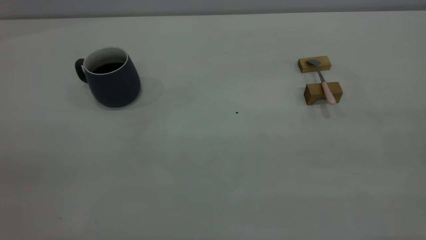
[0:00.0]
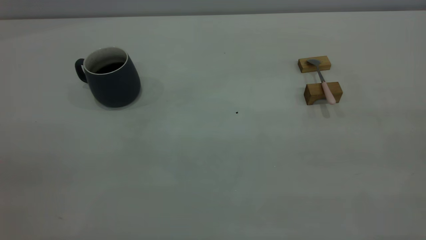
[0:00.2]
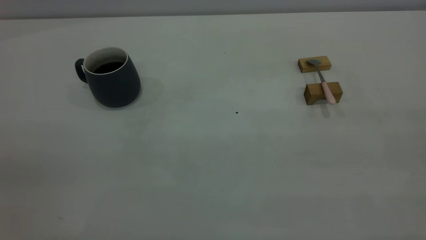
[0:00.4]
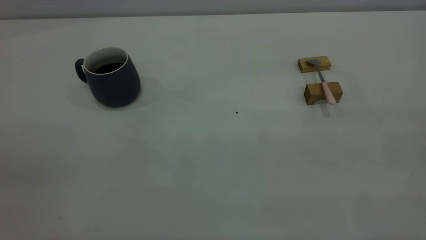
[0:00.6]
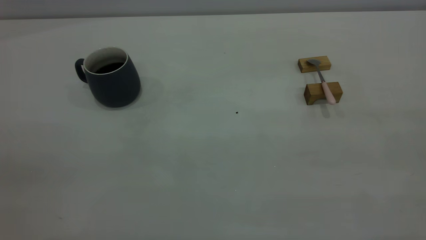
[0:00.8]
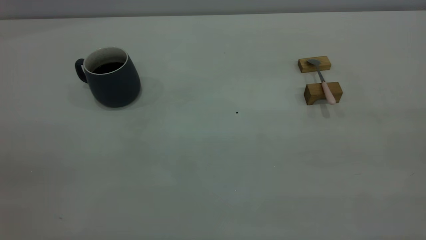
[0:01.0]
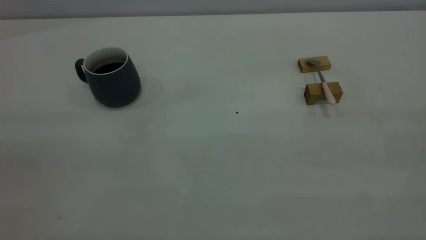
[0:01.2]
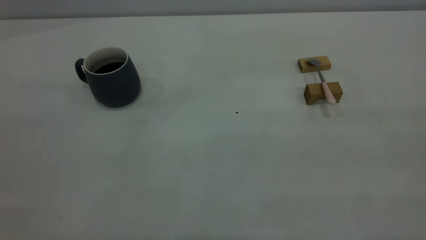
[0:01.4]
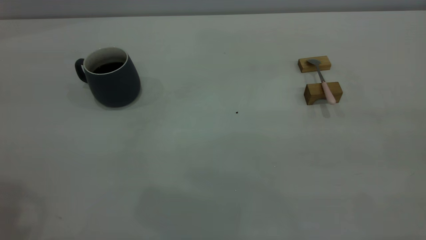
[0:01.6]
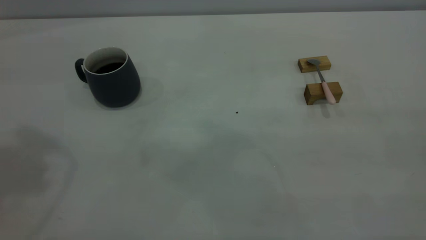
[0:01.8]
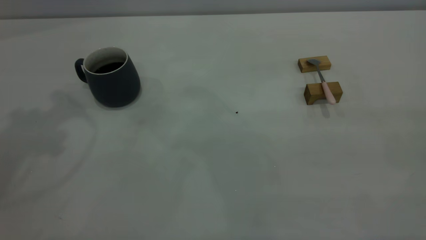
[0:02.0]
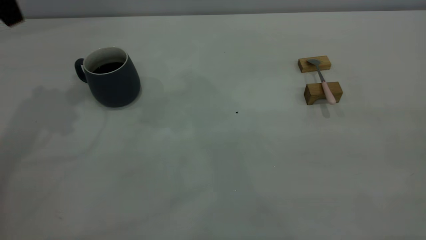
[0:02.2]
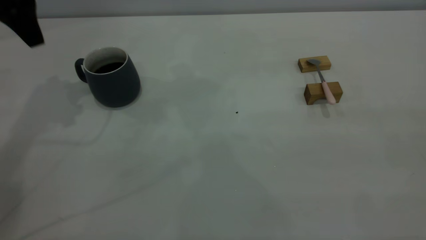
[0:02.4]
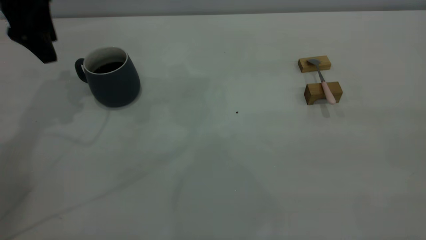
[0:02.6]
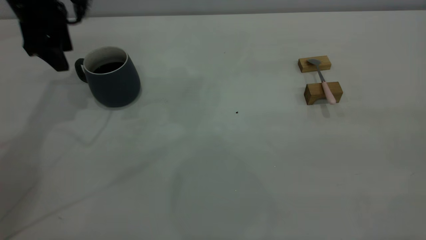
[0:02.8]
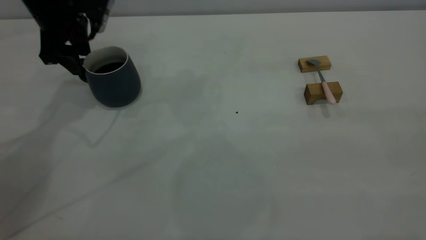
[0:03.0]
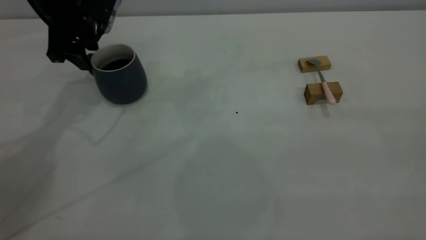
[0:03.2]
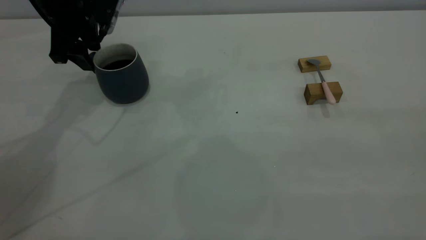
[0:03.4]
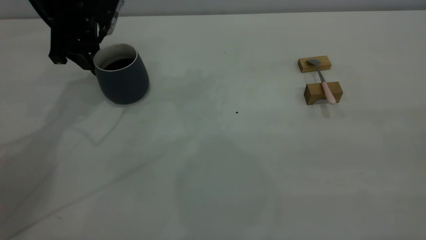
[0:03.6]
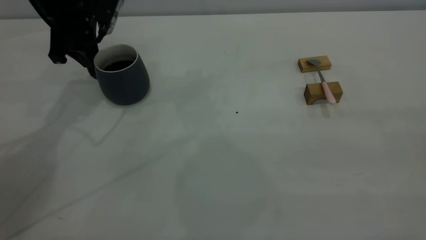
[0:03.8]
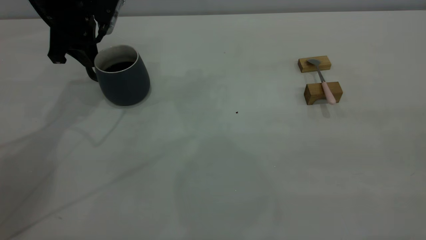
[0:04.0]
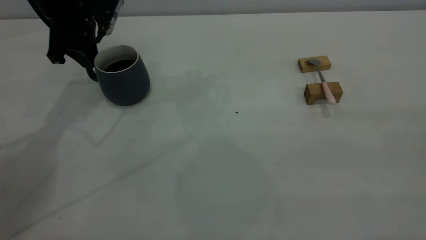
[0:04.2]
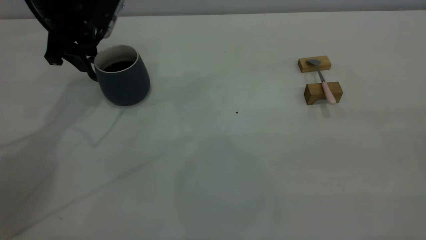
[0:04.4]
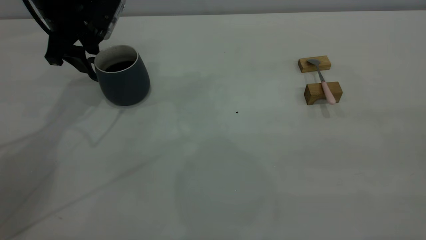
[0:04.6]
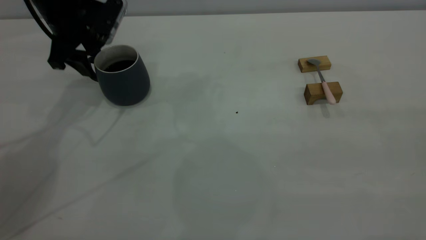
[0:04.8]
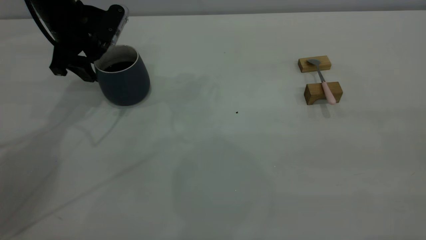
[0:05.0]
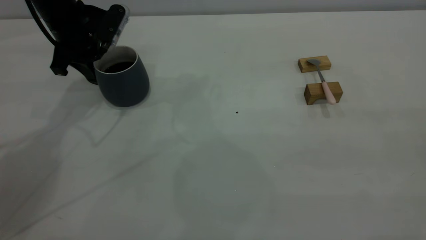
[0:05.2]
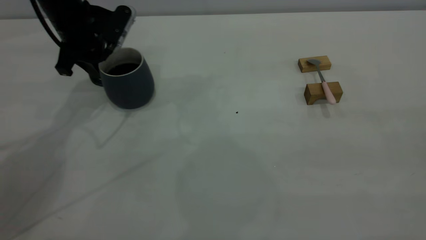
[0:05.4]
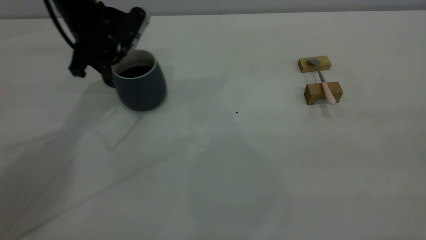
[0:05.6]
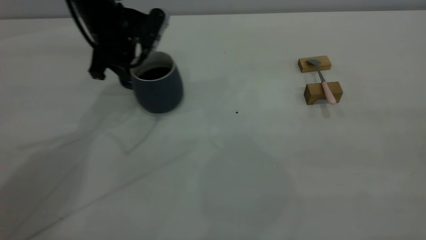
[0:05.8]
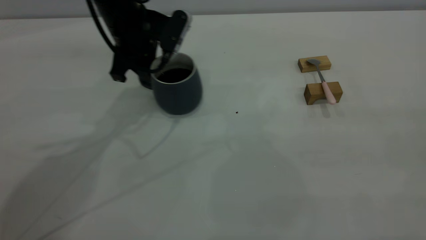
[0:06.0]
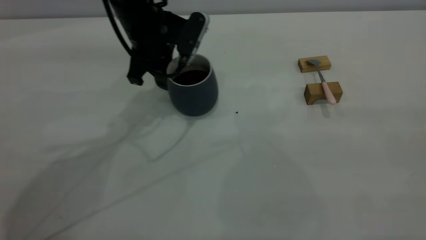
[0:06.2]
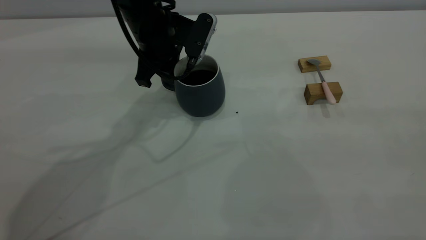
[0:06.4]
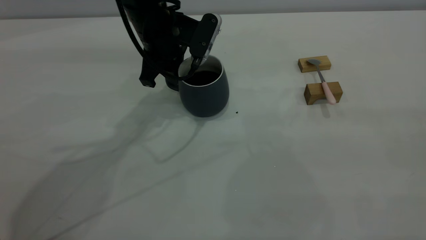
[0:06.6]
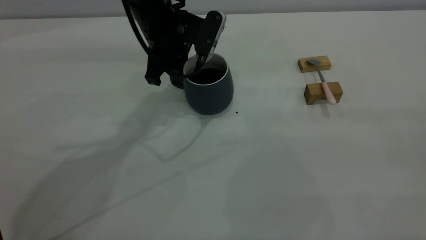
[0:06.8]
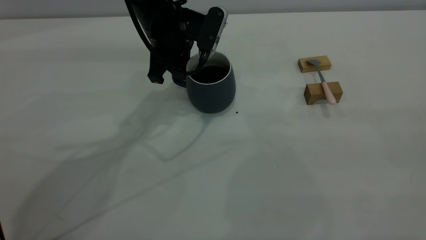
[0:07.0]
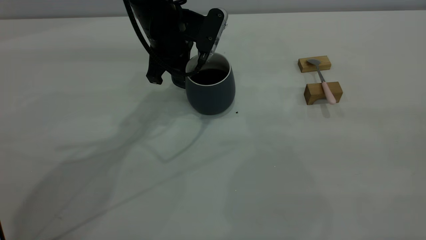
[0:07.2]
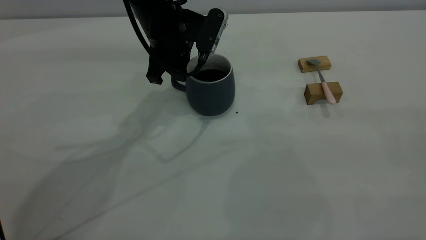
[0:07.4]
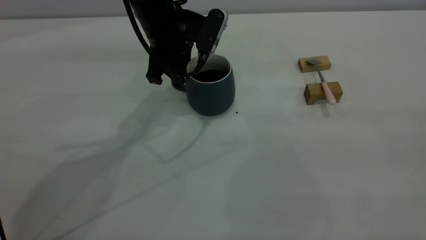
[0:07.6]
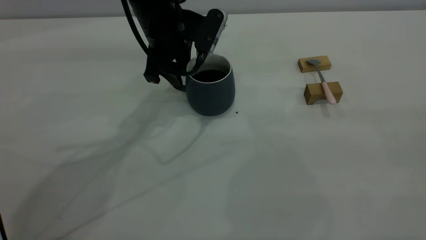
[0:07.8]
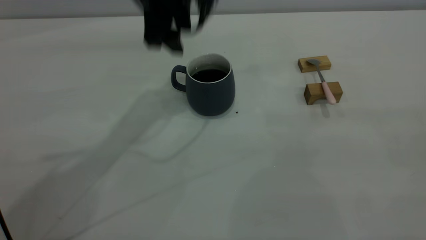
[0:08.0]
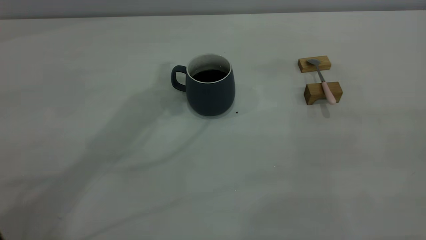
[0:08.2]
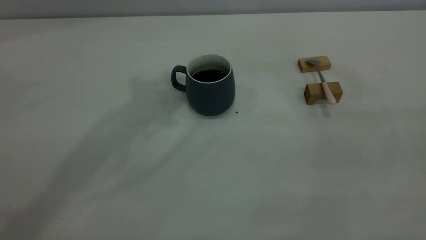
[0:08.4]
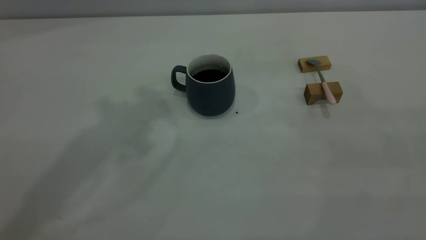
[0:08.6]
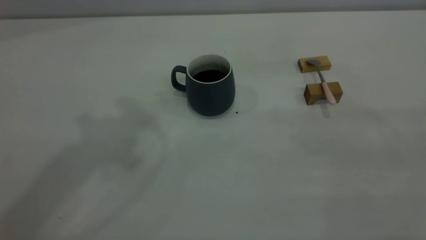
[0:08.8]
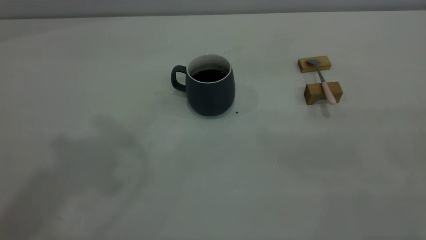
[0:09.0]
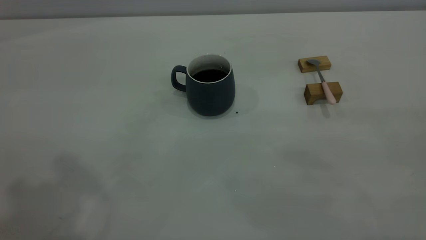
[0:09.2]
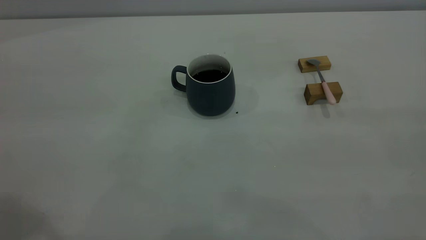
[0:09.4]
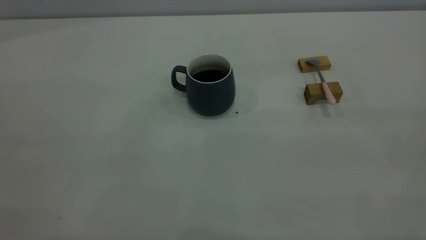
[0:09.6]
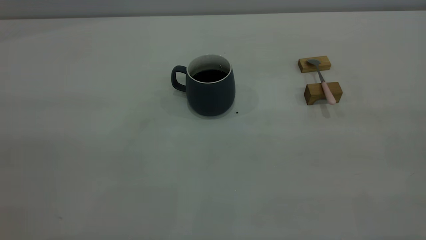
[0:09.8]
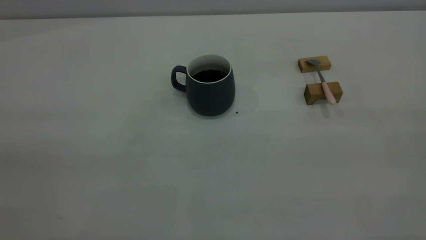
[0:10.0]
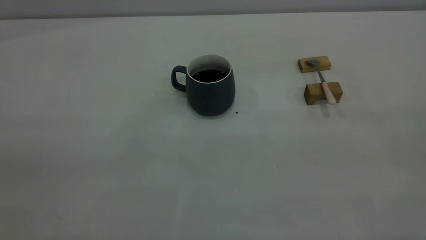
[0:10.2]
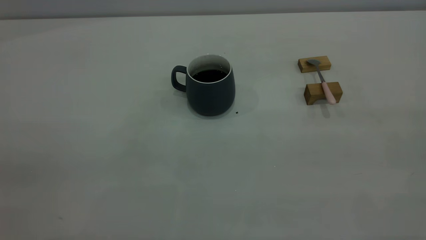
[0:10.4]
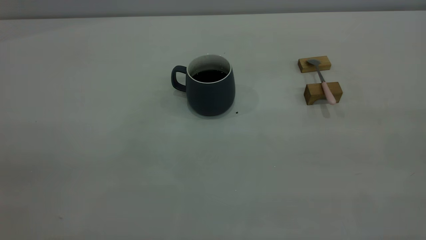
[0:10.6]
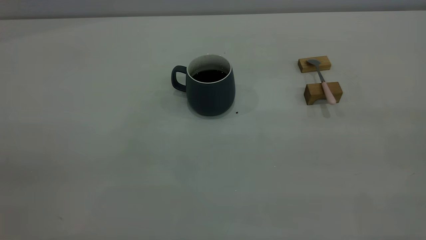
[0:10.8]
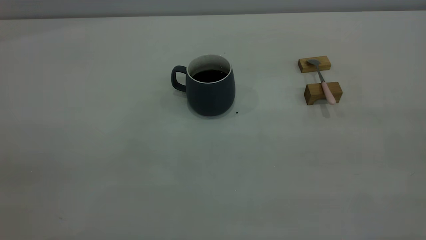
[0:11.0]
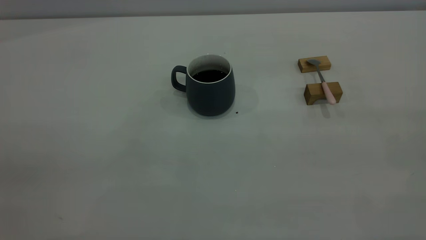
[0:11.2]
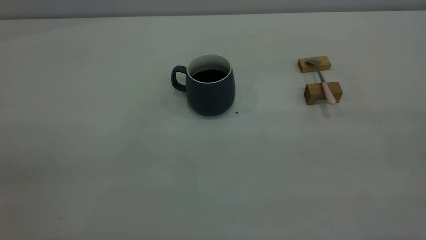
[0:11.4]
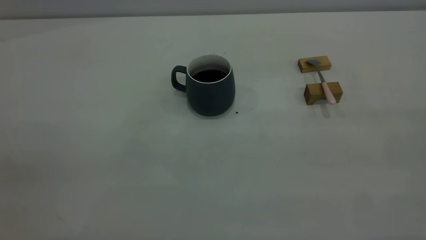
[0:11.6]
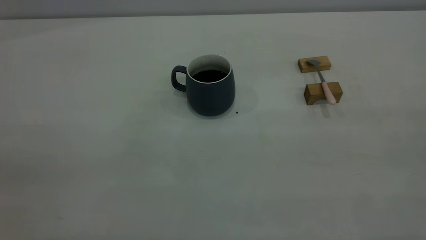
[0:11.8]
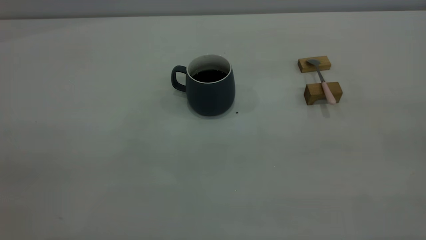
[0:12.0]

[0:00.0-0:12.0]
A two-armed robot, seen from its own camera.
Step, 0:00.0 to 0:07.8: Move the cup with coffee to the center of view.
0:01.6 to 0:03.0: The left gripper travels forward and downward by about 35 cm.
0:03.0 to 0:04.4: The left gripper closes, then opens again.
0:04.4 to 0:06.0: The left gripper heads to the right, covering approximately 10 cm, and closes its fingers.
0:06.0 to 0:07.6: The left gripper opens.
0:07.6 to 0:09.0: The left gripper is displaced upward and backward by approximately 40 cm, and opens and closes again.

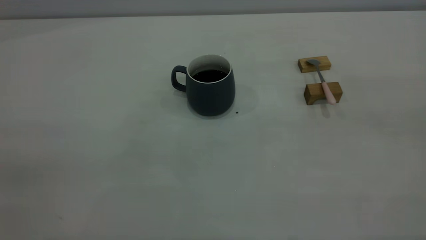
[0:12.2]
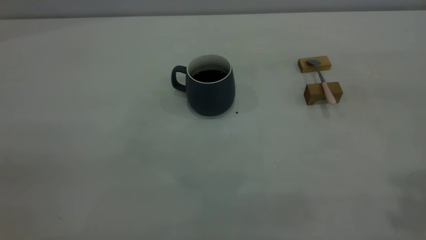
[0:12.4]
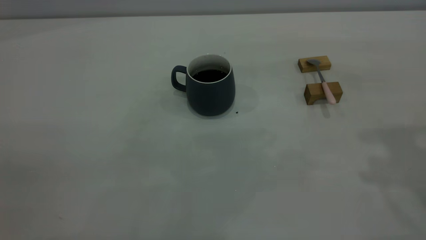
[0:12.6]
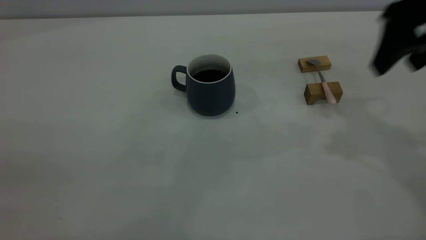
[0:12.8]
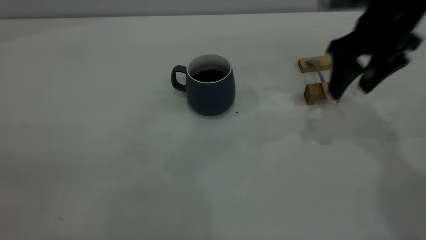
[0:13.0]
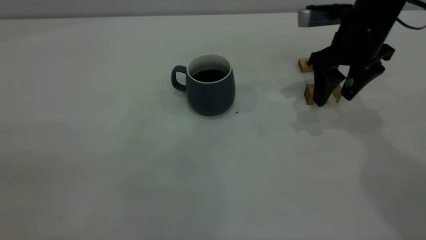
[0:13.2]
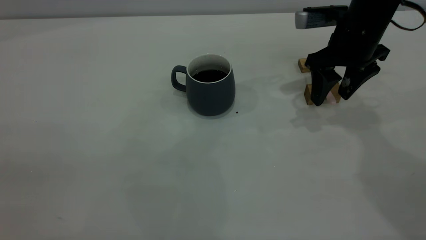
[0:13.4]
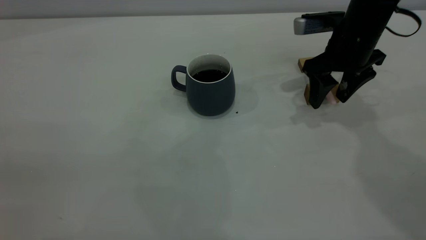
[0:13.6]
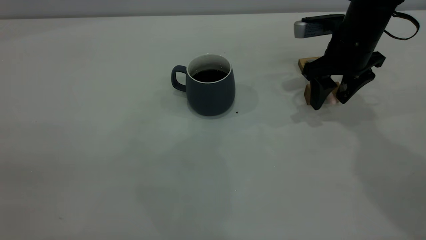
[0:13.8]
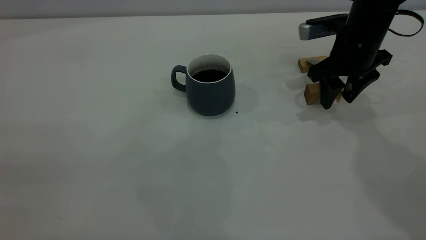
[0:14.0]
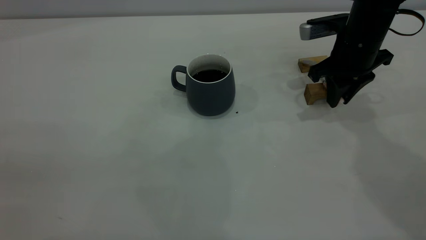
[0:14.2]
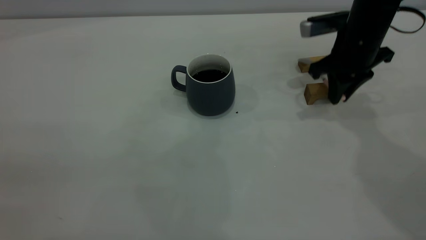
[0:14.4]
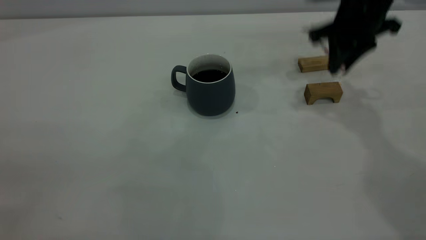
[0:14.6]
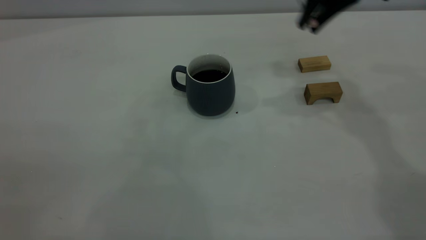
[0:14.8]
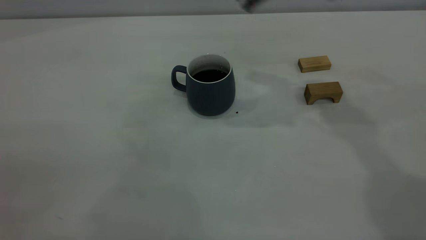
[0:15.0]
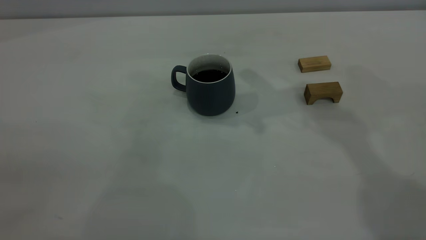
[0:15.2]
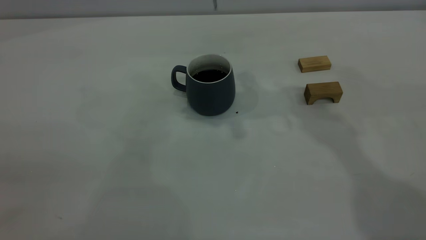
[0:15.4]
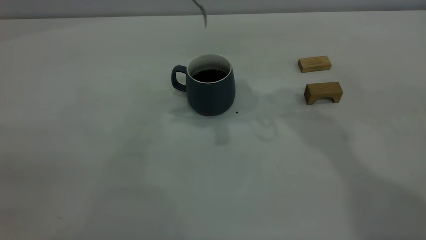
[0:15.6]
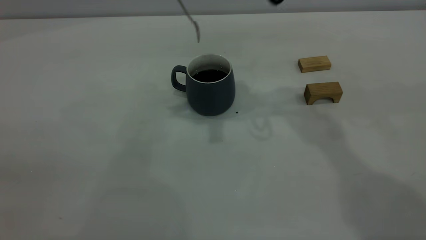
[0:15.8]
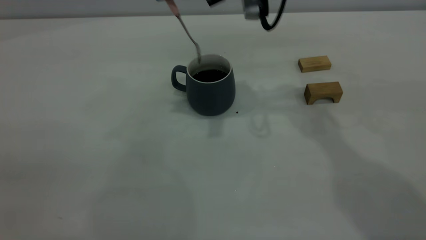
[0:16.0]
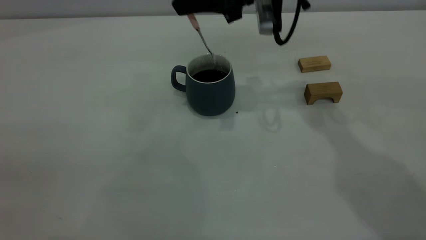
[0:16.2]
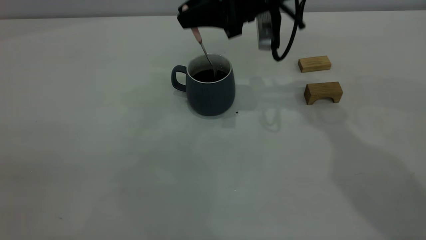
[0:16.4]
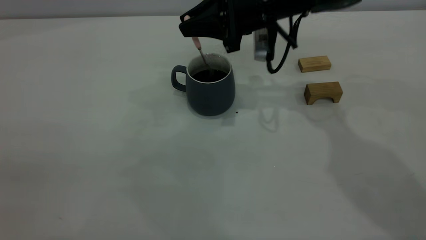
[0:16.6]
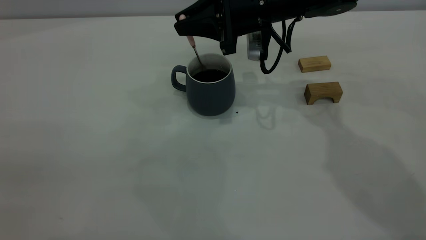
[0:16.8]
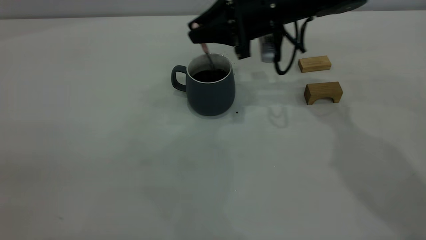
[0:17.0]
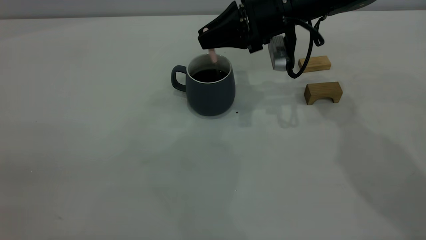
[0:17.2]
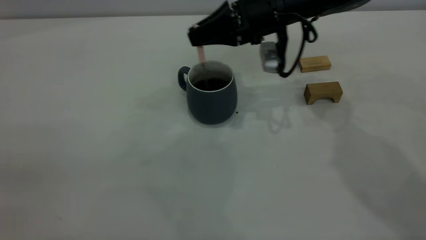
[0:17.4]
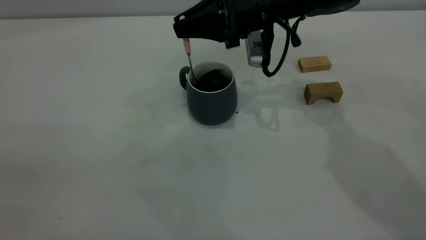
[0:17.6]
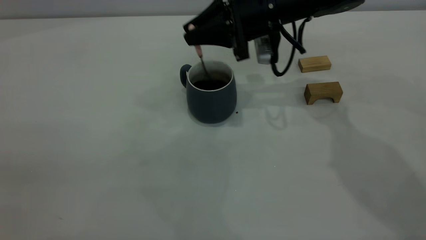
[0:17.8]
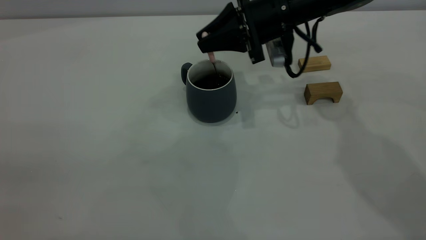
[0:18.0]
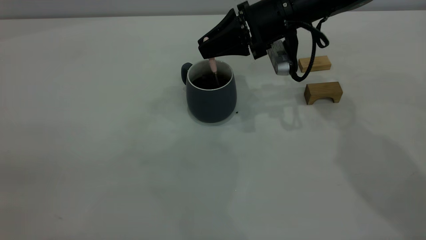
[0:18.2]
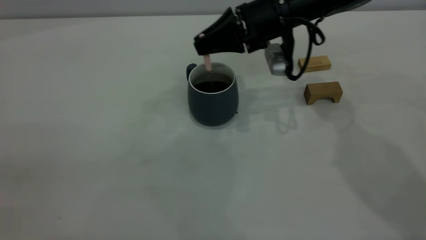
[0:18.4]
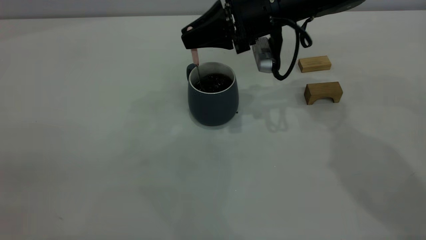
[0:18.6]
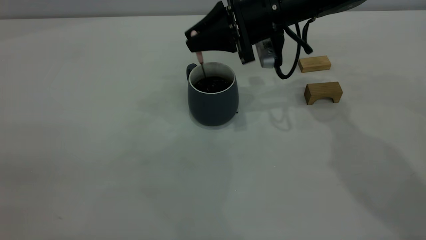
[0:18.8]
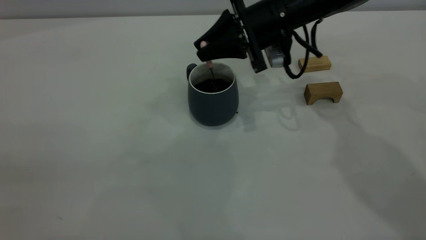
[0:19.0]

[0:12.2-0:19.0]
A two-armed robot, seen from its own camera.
Step, 0:12.2 to 0:14.6: Pick up the spoon.
0:12.2 to 0:13.6: The right gripper moves forward and downward, approximately 40 cm.
0:13.6 to 0:15.0: The right gripper moves upward and to the left, approximately 20 cm, and closes.
0:15.0 to 0:16.2: The right gripper travels downward by about 10 cm.
0:16.2 to 0:17.6: The right gripper is displaced downward by some 5 cm.
0:17.6 to 0:19.0: There are only small adjustments of the grippers.
